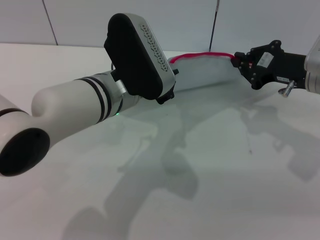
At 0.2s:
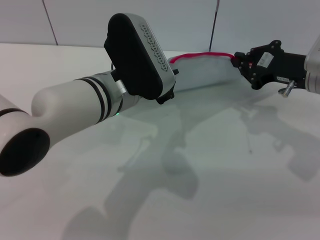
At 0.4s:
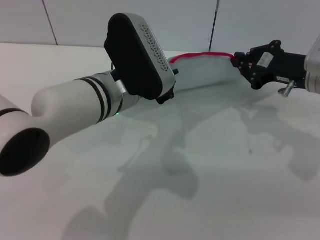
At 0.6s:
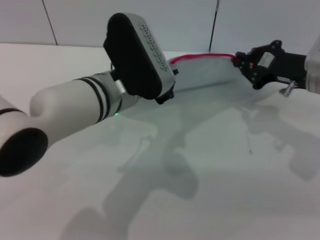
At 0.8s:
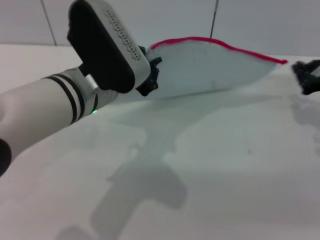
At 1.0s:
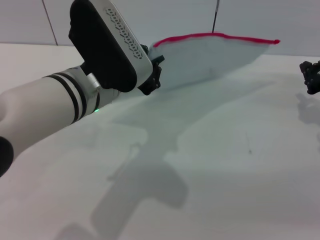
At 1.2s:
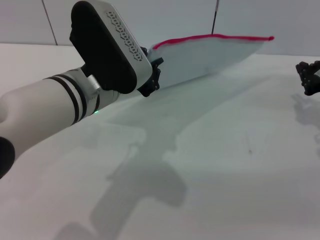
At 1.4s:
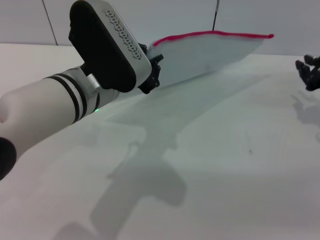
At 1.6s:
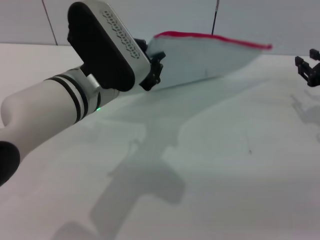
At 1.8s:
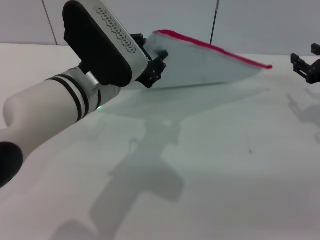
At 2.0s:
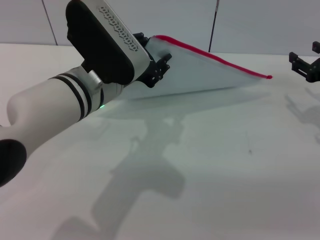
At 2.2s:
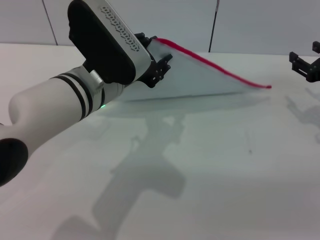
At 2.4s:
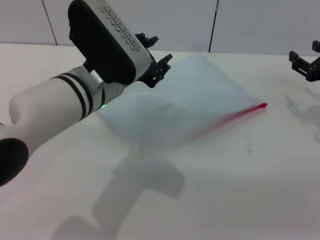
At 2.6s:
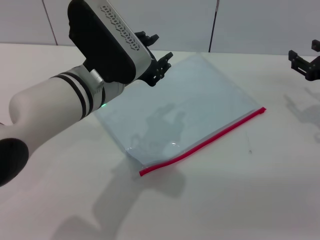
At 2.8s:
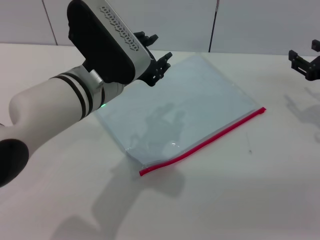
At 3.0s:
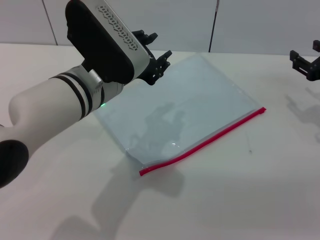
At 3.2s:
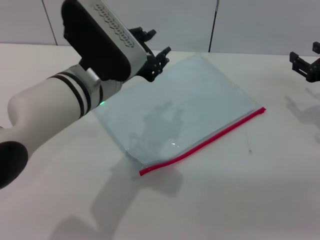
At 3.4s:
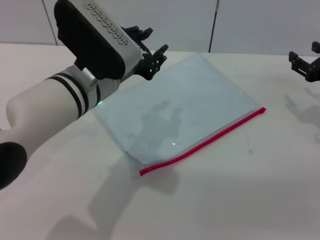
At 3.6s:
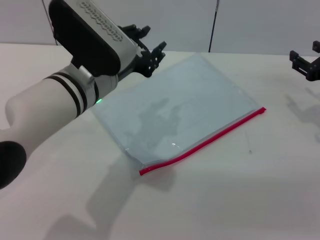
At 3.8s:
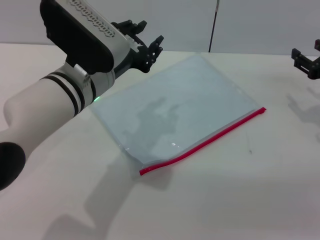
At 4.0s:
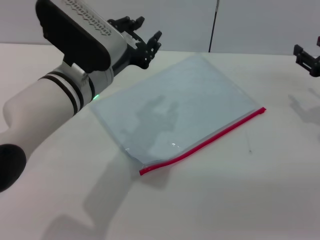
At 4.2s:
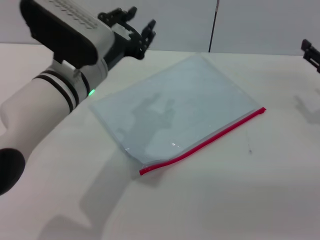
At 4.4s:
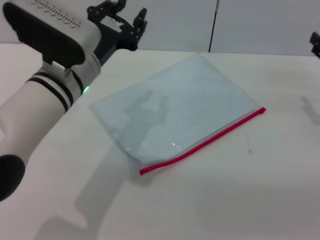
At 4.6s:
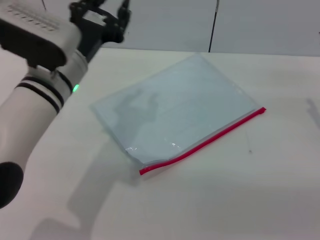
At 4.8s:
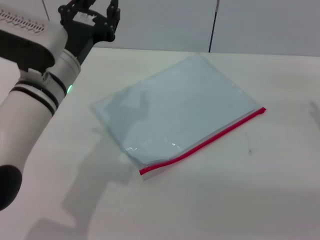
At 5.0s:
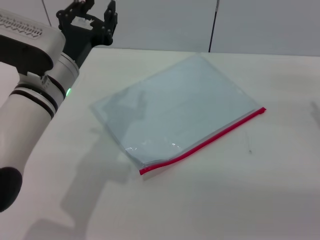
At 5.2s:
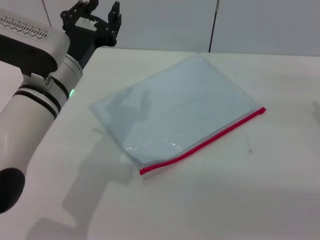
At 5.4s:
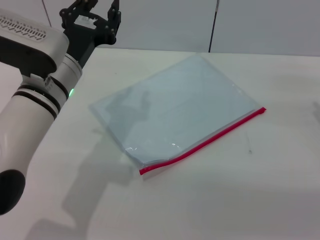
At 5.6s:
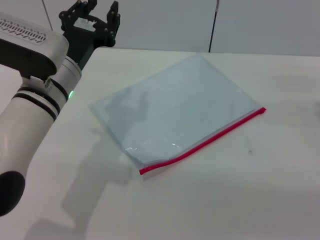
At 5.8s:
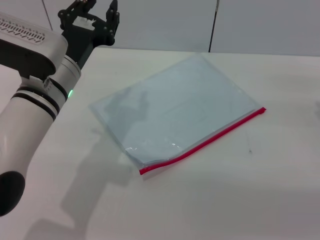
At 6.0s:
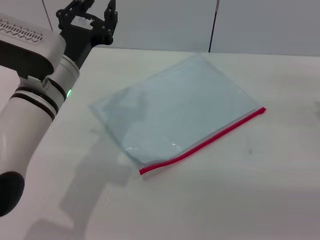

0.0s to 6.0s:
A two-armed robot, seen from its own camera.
Step, 1.2s to 2.6s: Place the transparent plastic bag.
0.0s to 1.6s: The right gripper is displaced to the right by about 10 cm.
1.6s to 3.0s: The right gripper opens up; the left gripper opens up.
4.4s to 6.0s: The grippers stay close to where they were, moving slightly.

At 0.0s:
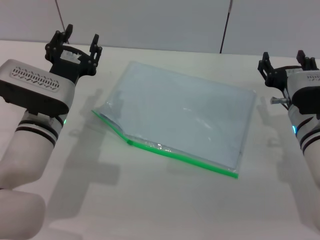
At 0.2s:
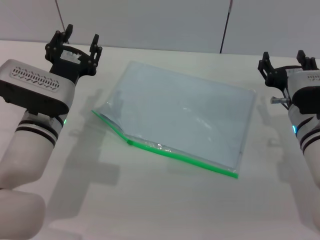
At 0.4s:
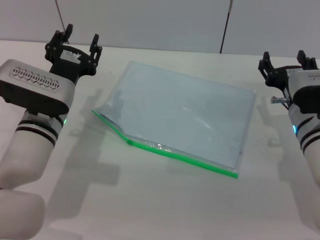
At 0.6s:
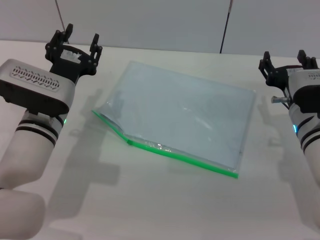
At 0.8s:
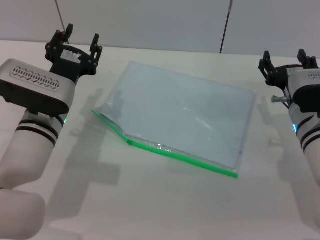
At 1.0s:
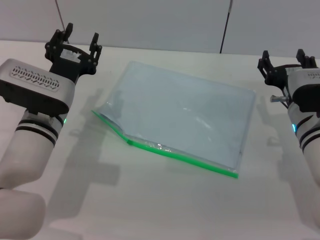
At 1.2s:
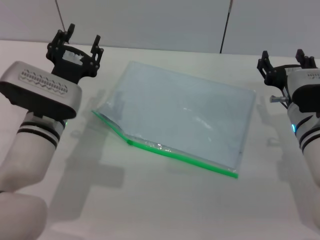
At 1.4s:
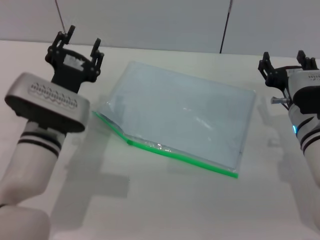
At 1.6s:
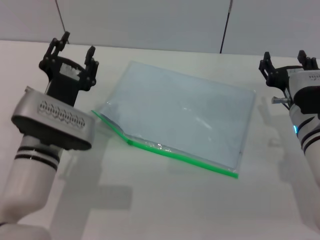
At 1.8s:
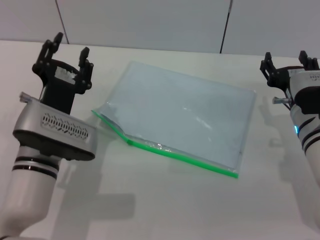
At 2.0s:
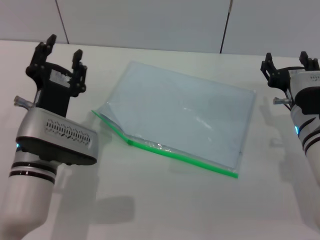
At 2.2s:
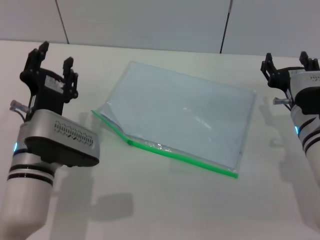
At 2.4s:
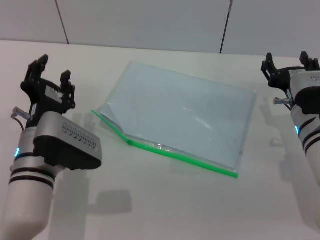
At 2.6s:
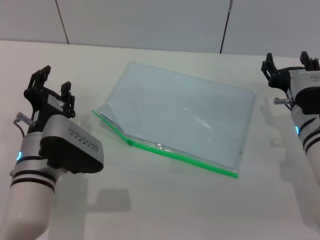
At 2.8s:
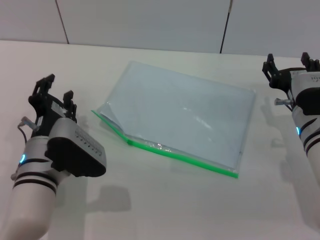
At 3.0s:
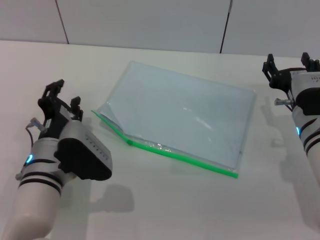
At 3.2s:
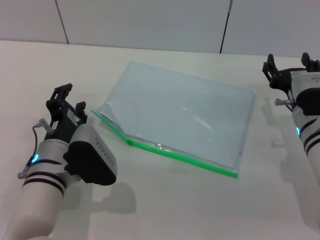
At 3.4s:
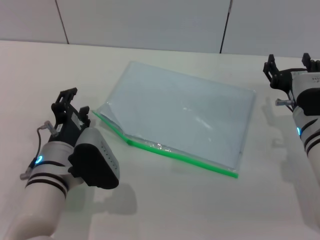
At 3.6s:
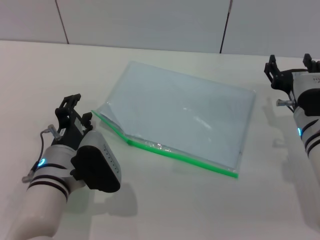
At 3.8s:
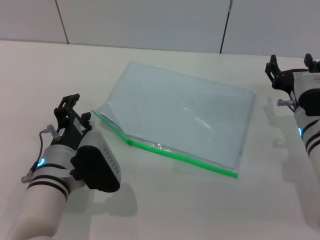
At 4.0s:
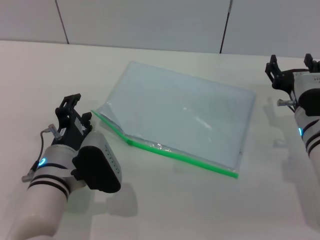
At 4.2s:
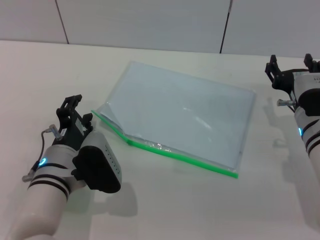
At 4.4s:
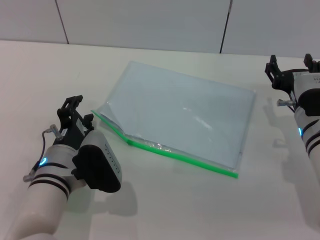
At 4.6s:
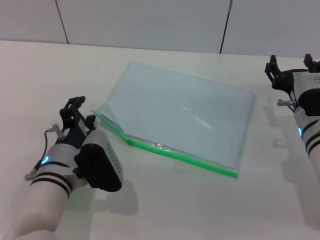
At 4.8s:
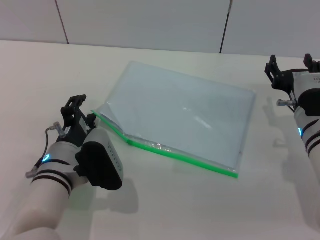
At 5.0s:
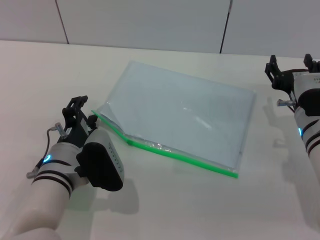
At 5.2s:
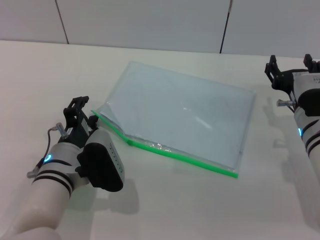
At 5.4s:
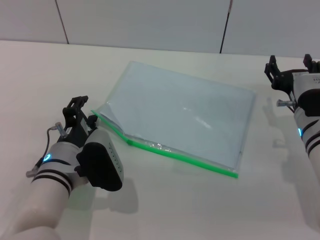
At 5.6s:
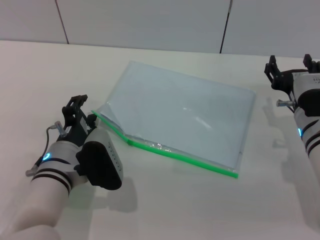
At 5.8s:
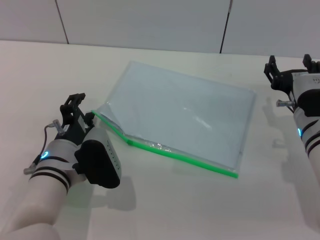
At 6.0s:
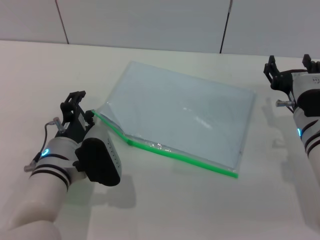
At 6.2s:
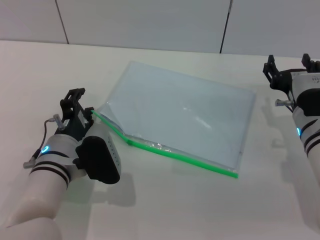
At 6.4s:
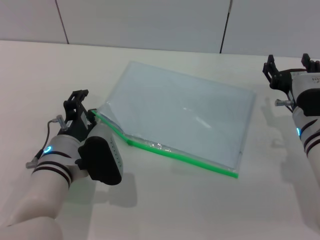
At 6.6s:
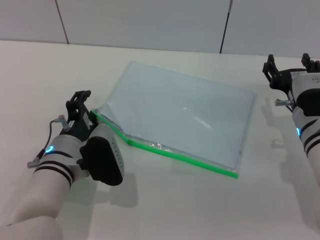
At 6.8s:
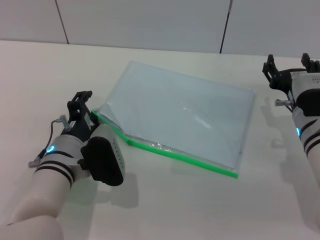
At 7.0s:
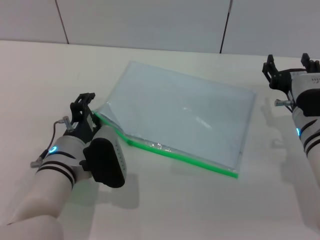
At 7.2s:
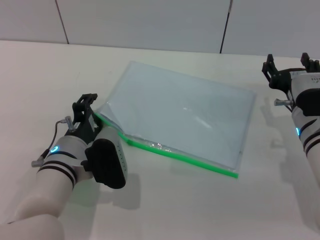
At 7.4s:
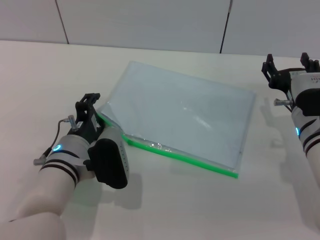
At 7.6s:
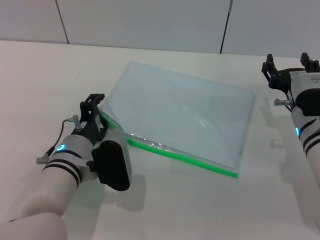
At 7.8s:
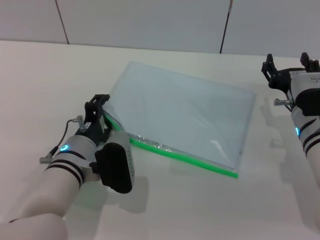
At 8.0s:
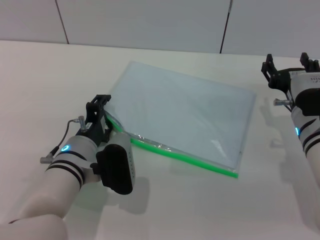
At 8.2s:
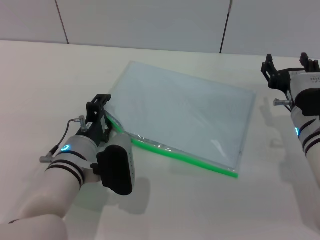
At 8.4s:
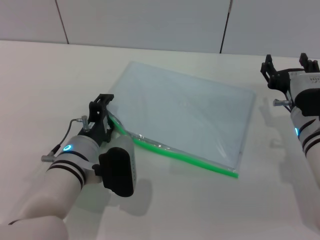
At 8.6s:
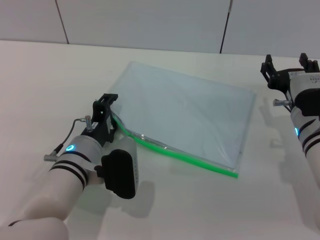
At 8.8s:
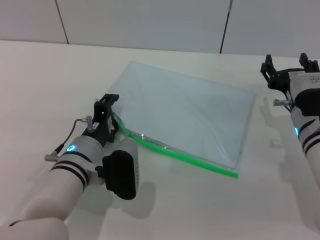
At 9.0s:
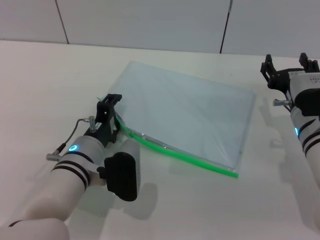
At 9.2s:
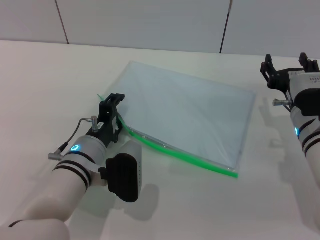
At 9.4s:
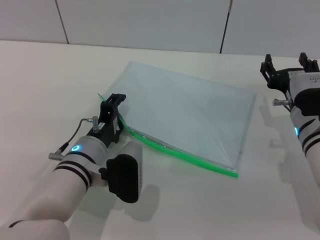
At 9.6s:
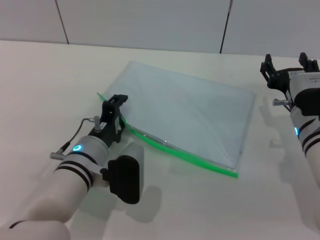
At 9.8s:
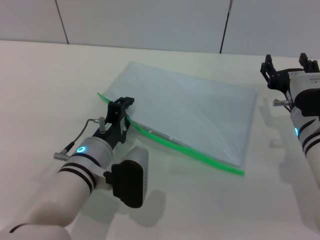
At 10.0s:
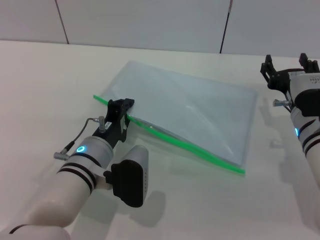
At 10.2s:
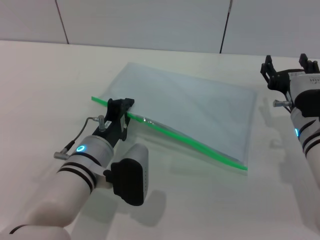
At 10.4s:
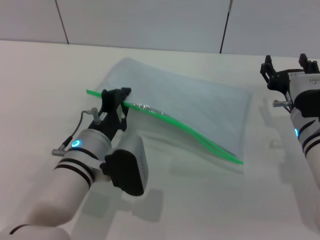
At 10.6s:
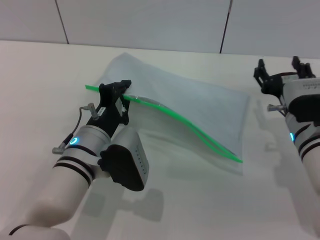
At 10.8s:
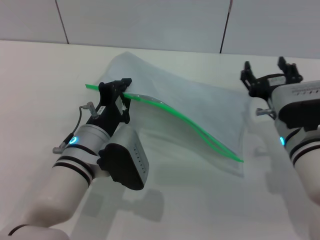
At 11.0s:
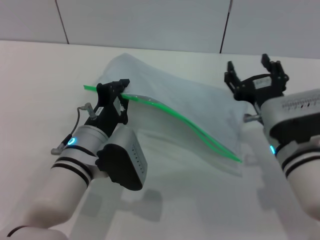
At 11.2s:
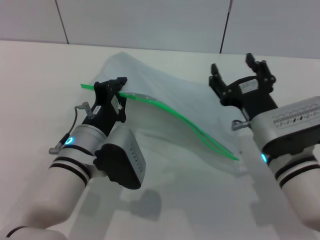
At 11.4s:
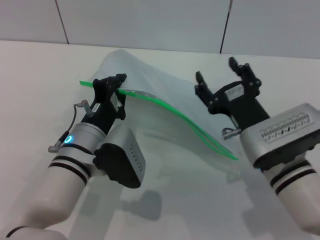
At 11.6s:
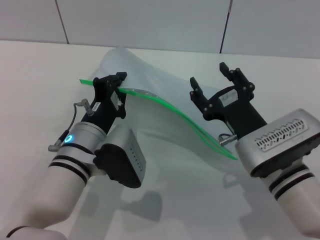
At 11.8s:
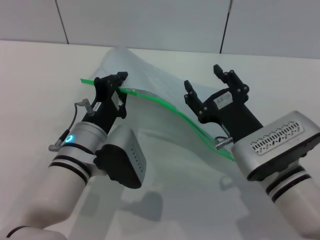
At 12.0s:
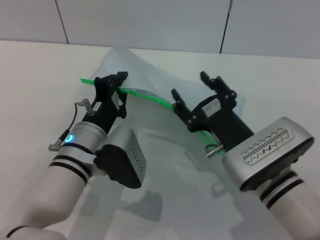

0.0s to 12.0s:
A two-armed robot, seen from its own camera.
Step, 0.0s to 10.6s: Pick up the transparent plastic bag with the left gripper.
0.0s to 1.6s: The grippers move only a little.
3.0s to 6.0s: There are only small adjustments of the grippers.
6.0s to 9.0s: The grippers move only a little.
9.0s to 10.4s: The left gripper closes.
10.4s to 12.0s: The right gripper goes about 10 cm to the left and backward.

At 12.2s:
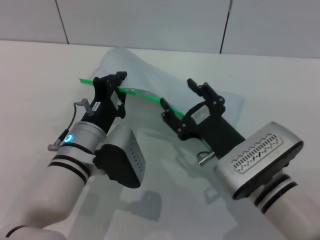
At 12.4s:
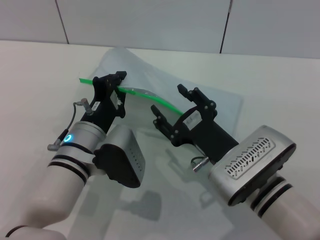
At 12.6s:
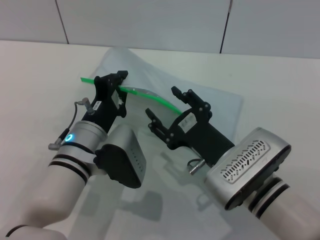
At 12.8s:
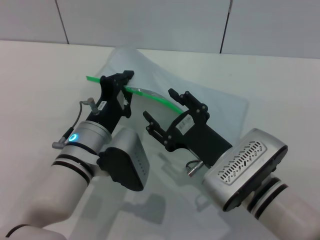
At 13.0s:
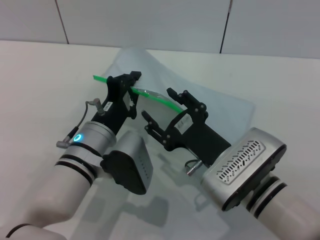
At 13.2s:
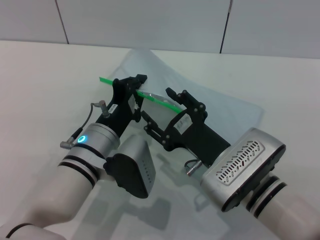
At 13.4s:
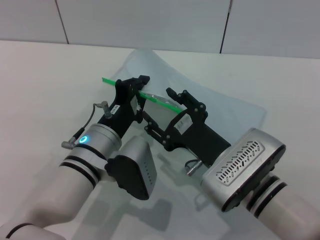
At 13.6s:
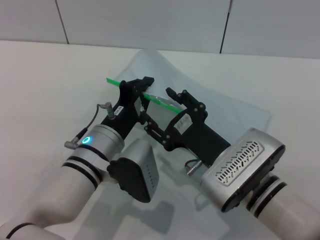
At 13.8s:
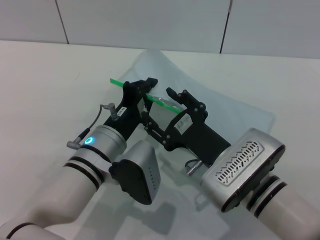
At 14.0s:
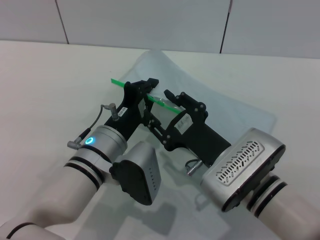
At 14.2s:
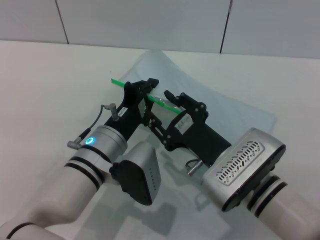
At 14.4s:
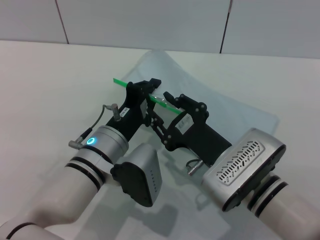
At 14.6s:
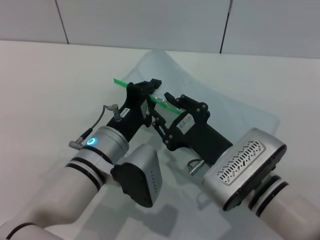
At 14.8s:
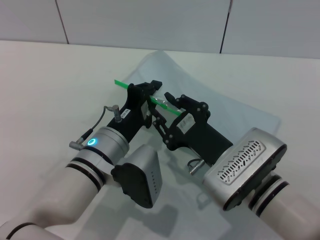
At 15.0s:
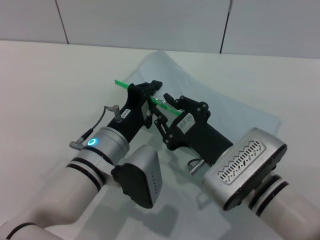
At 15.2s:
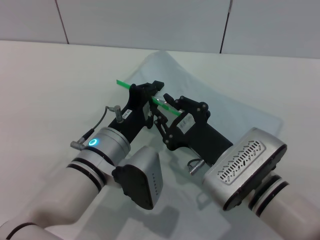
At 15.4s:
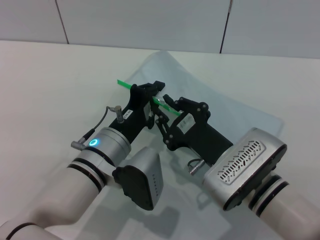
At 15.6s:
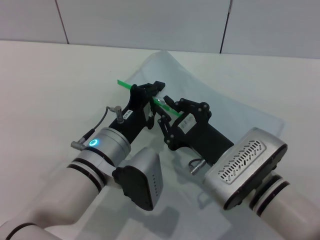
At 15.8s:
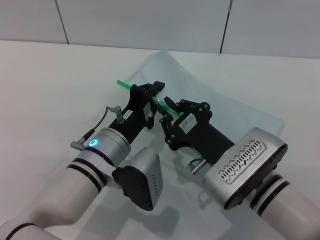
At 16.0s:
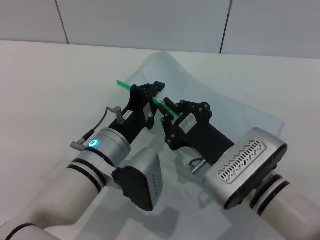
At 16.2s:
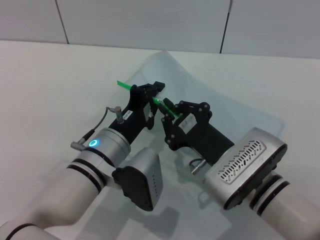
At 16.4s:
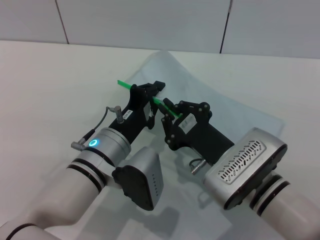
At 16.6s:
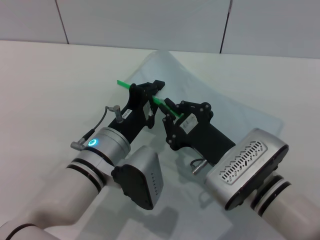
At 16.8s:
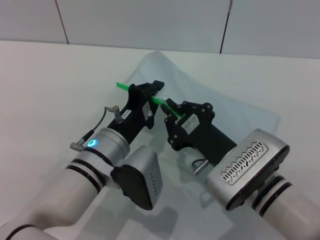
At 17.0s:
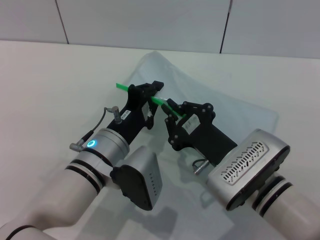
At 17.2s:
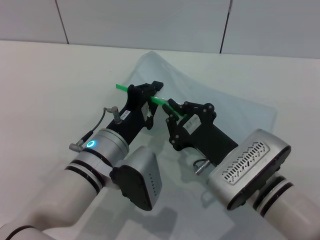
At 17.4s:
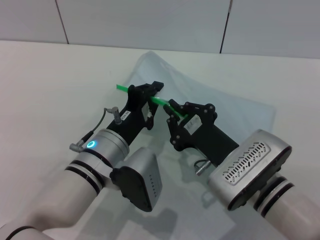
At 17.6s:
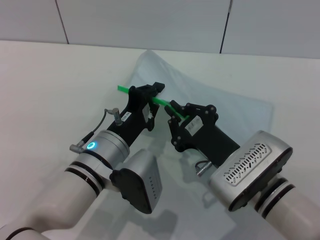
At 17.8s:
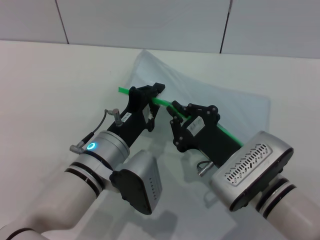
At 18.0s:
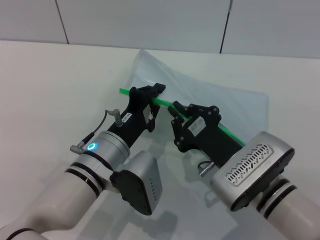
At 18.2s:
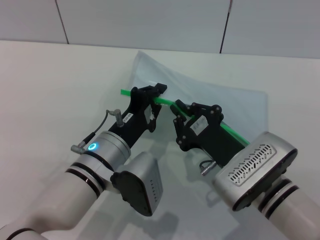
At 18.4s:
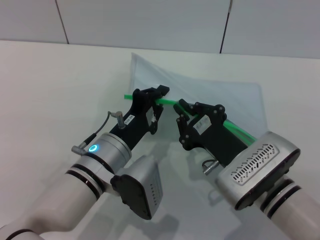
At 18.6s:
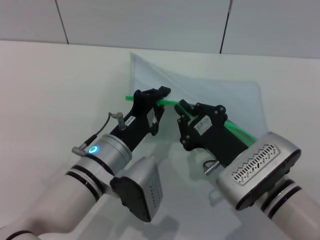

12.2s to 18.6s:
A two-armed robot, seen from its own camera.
13.8s to 15.4s: The right gripper closes its fingers.
15.4s to 17.0s: Both grippers stay about where they are.
17.0s to 18.6s: There are only small adjustments of the grippers.
